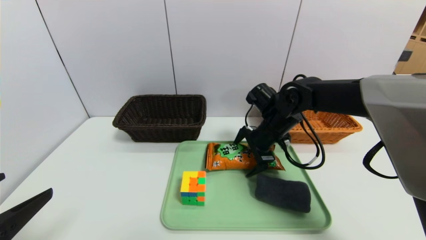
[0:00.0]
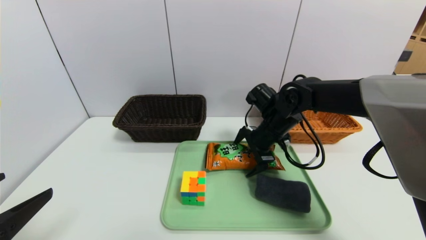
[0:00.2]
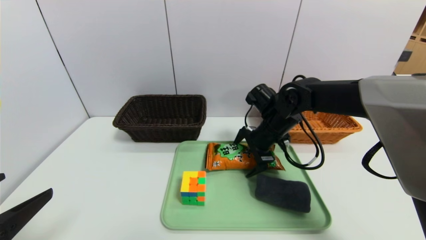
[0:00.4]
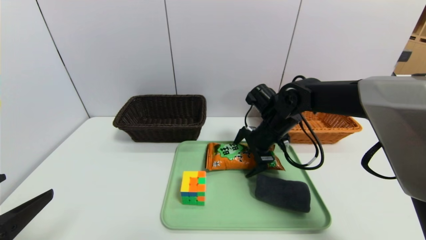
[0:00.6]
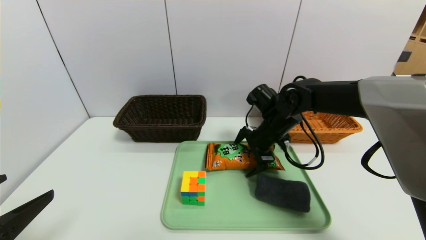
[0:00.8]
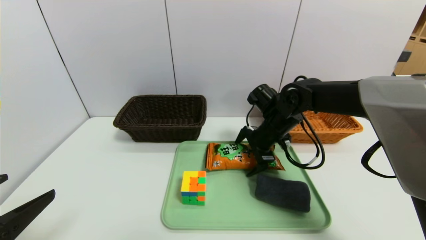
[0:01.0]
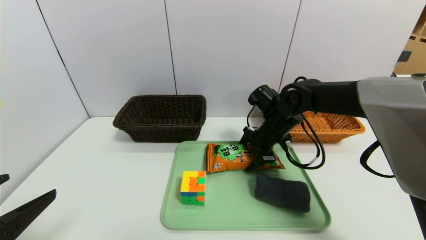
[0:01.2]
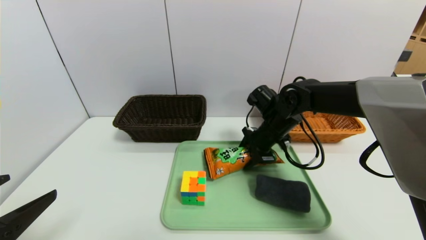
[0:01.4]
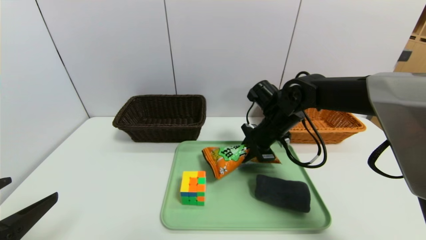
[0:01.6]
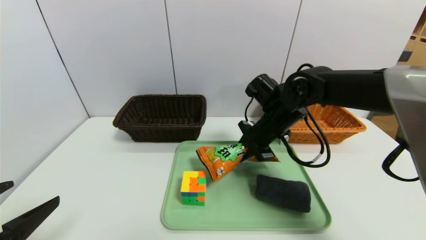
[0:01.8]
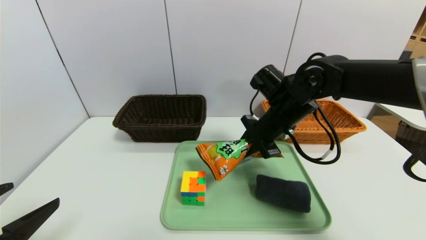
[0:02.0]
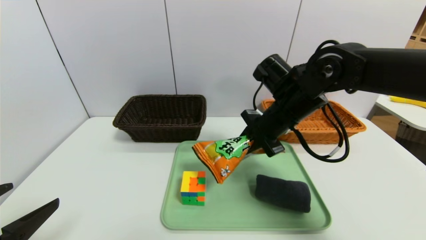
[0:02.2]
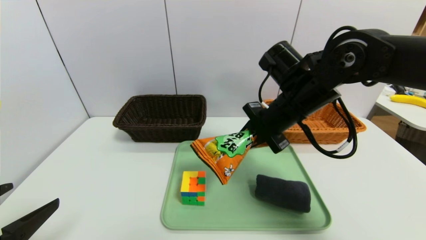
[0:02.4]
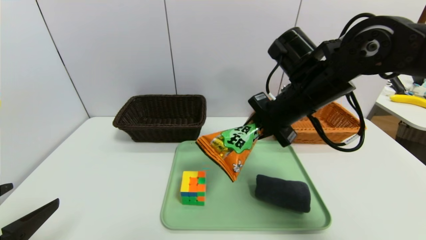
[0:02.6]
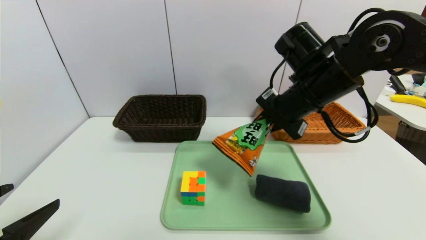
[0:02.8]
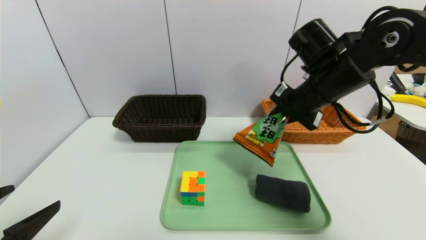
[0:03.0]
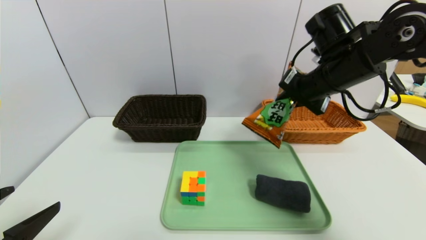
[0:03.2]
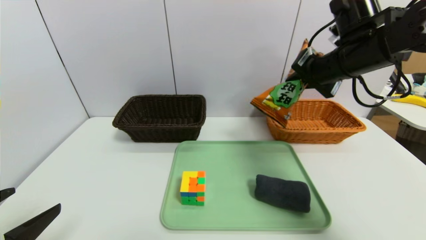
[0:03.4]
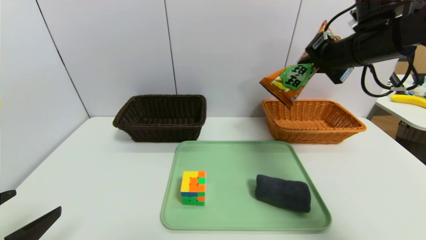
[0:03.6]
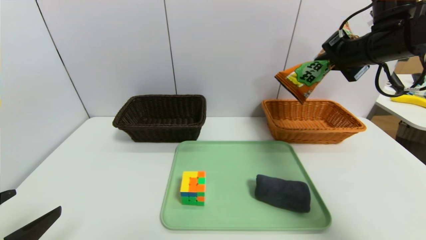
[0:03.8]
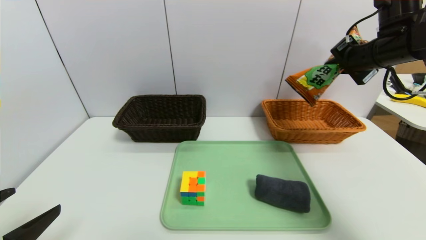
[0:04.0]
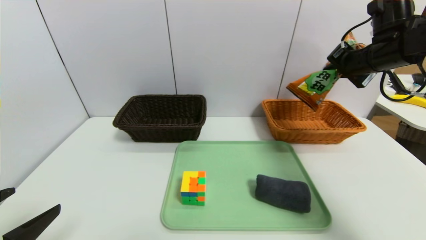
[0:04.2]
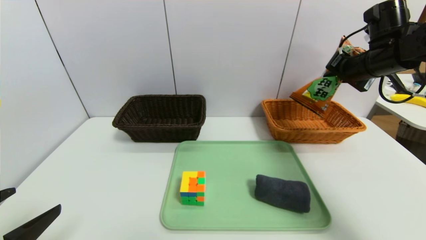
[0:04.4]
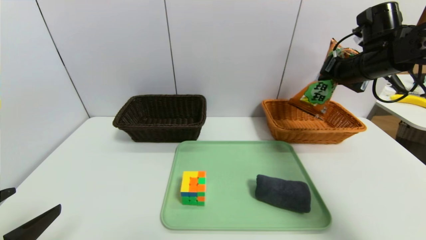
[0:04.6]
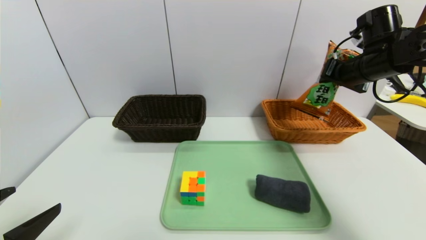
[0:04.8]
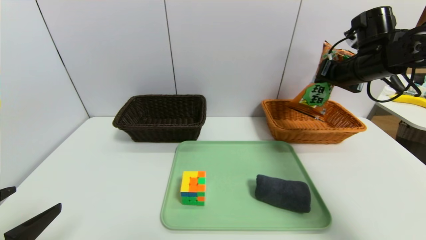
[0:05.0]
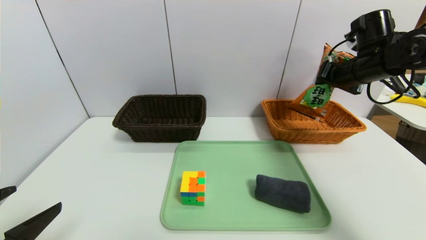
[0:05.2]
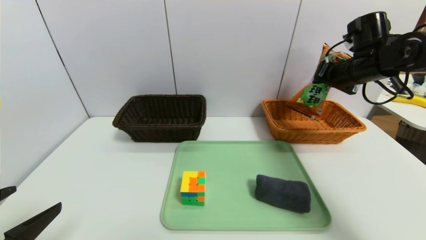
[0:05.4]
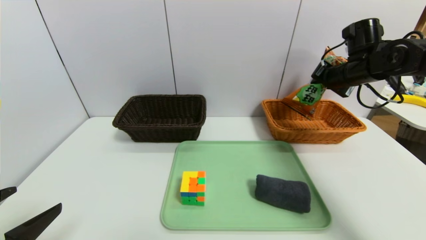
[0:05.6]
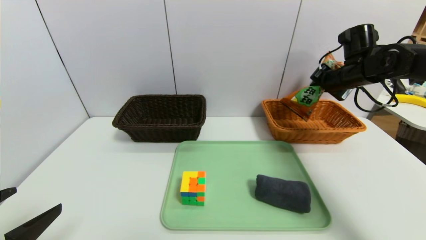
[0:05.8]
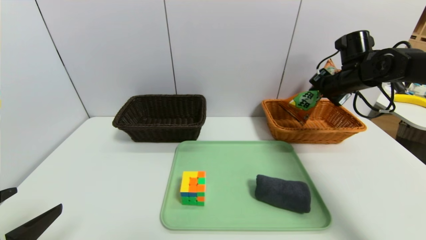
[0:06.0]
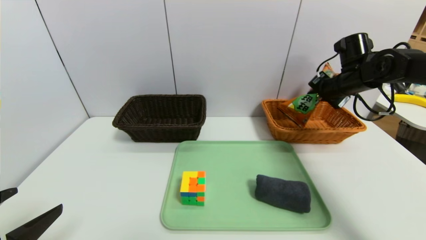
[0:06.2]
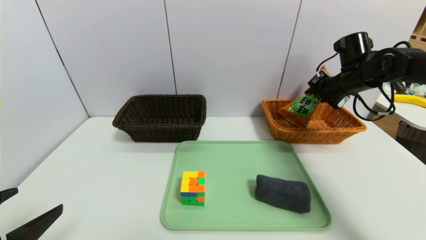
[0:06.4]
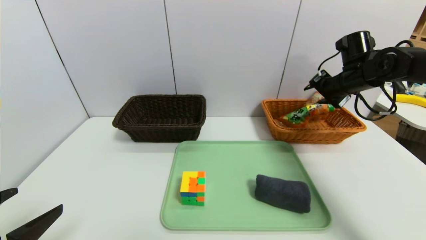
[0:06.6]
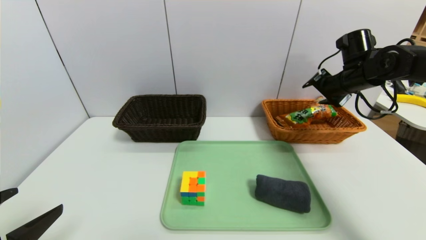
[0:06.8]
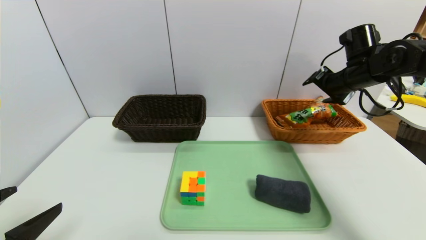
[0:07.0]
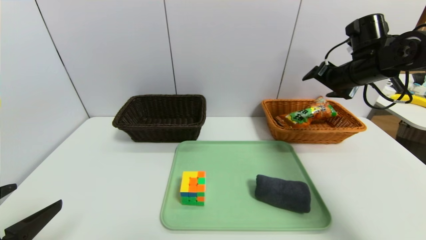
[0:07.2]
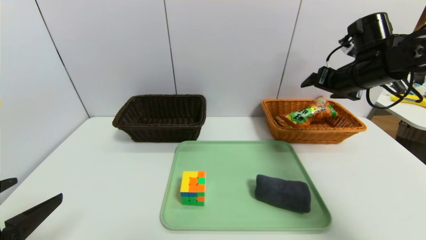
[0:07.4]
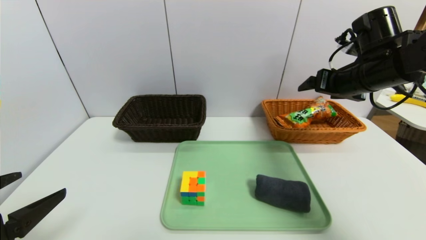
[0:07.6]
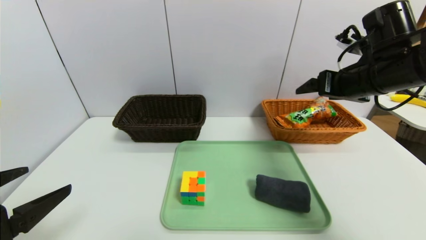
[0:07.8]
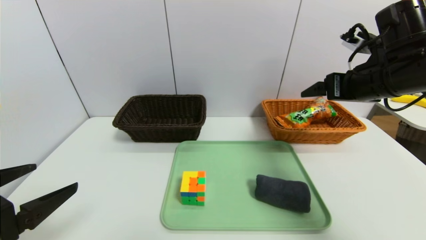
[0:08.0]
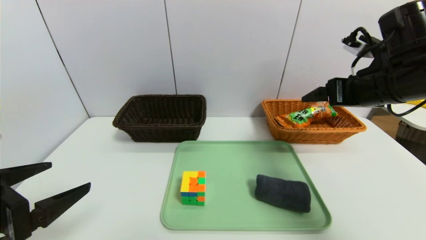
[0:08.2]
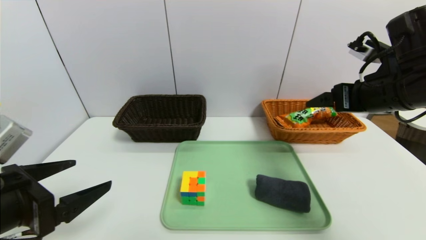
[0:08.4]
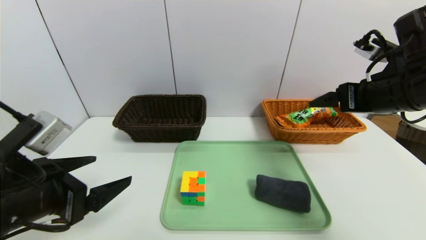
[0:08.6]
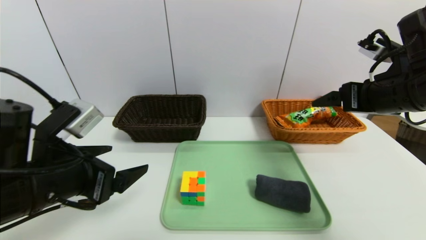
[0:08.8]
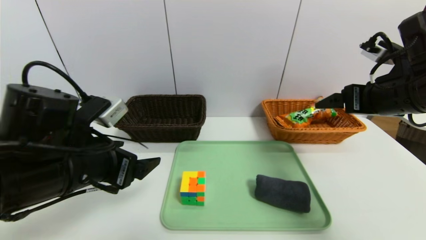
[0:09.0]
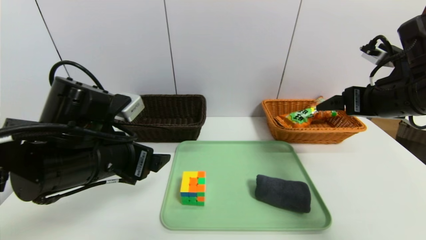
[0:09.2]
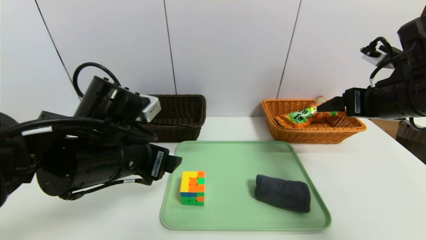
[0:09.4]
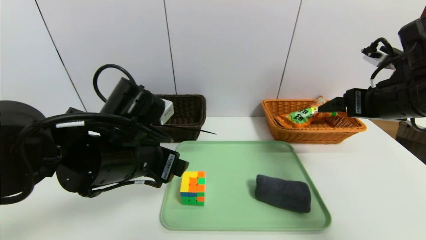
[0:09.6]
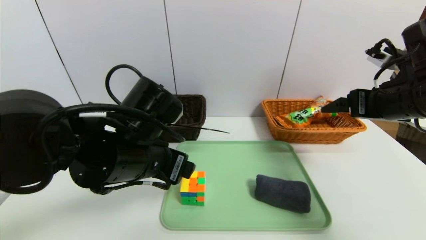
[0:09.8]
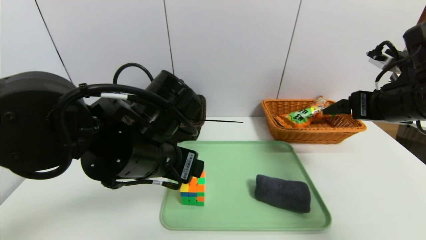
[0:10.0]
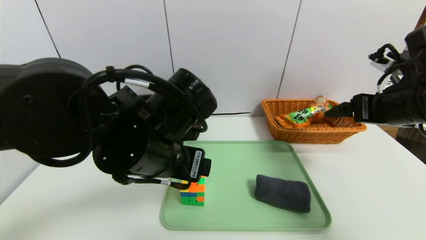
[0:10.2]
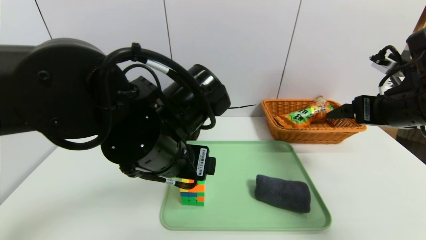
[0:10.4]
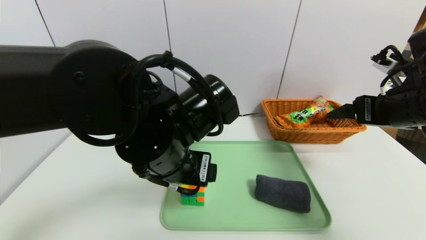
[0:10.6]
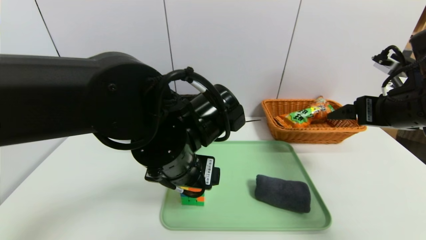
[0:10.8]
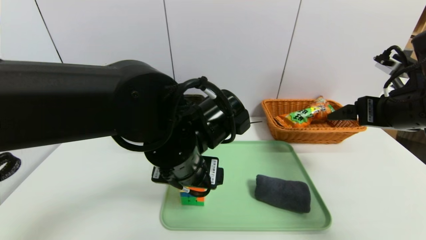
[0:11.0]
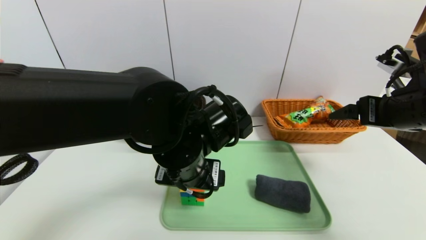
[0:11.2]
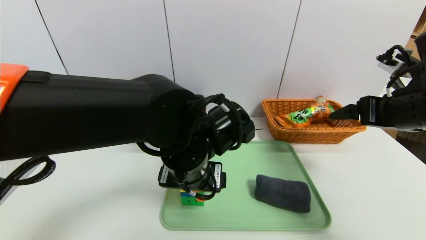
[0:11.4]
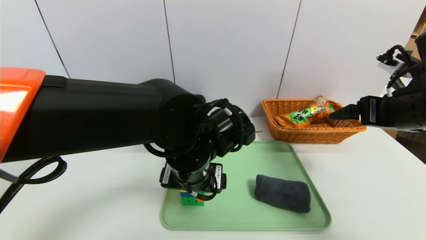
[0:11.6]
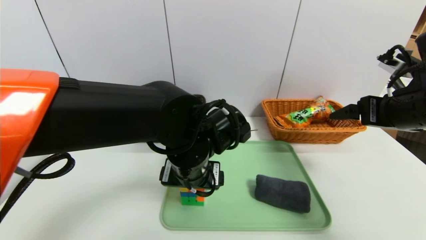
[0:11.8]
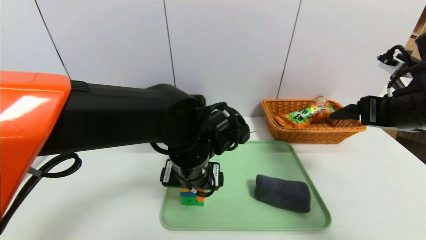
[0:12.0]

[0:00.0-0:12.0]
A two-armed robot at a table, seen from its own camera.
Task of the whole recording: place the food in the right basket with the right gripper, and place the non food items in the left basket with the left gripper.
Step, 0:00.0 to 0:07.0: Grasp the cookie and put it in the right basket.
0:00.0 to 0:01.6: The right gripper closes.
0:01.6 to 0:03.0: The right gripper travels upward and backward by some 10 cm.
0:03.0 to 0:04.4: The right gripper moves to the right and forward, about 15 cm.
0:04.4 to 0:06.0: The right gripper heads downward and forward, covering roughly 10 cm.
0:06.0 to 0:07.6: The right gripper moves backward, about 10 cm, and opens its fingers.
0:07.6 to 0:09.0: The left gripper shifts roughly 15 cm forward and to the right; the right gripper travels backward by roughly 10 cm.
0:09.0 to 0:10.4: The left gripper goes about 10 cm to the right.
0:10.4 to 0:12.0: The left gripper heads downward, covering roughly 5 cm.

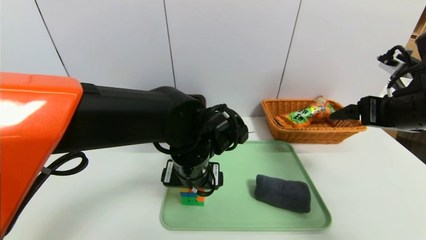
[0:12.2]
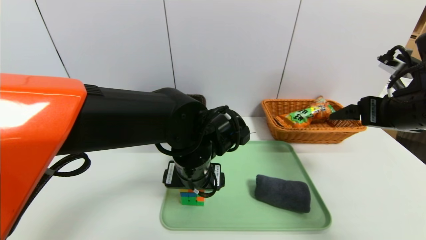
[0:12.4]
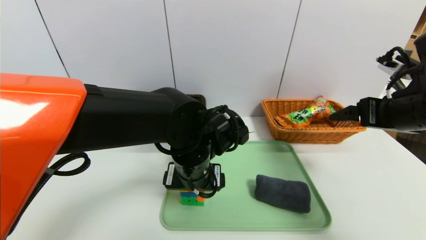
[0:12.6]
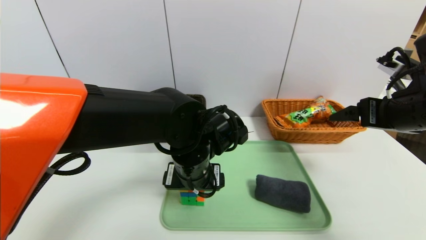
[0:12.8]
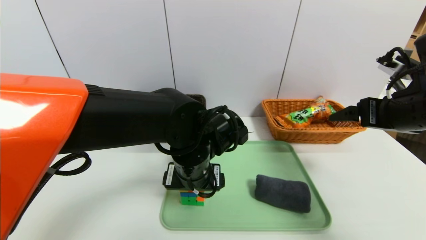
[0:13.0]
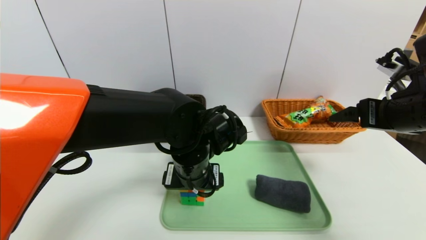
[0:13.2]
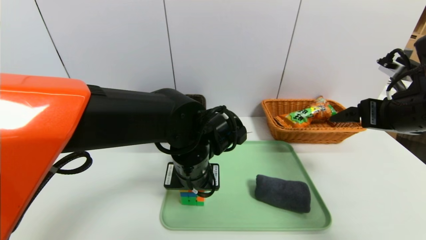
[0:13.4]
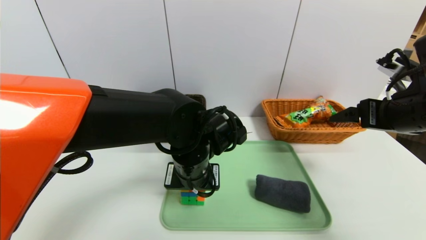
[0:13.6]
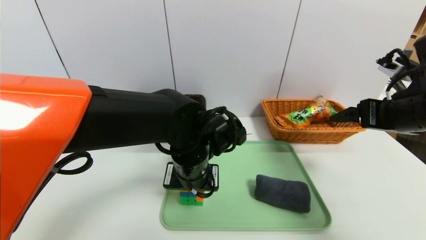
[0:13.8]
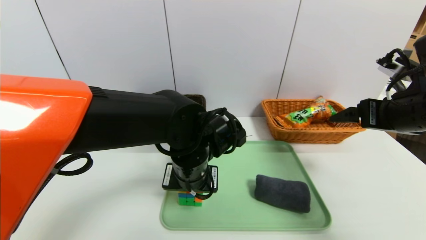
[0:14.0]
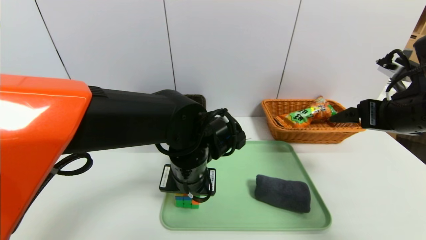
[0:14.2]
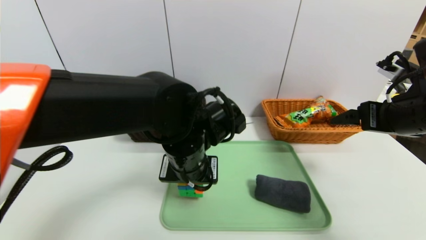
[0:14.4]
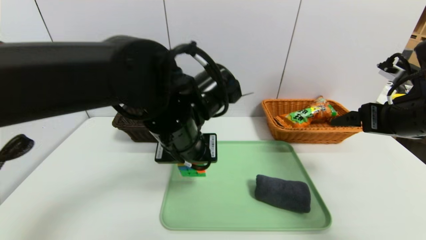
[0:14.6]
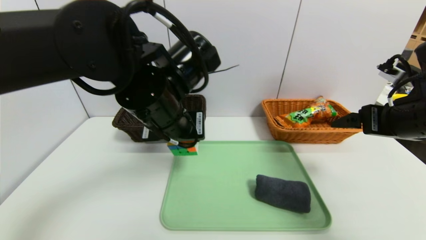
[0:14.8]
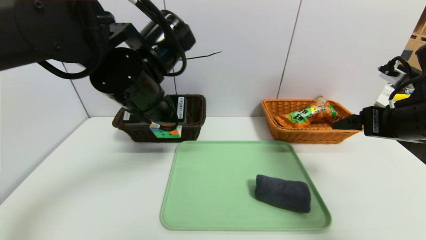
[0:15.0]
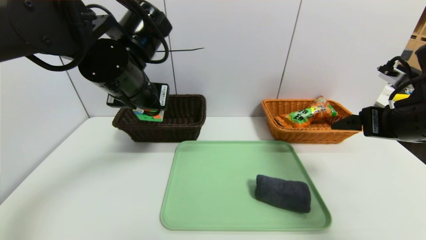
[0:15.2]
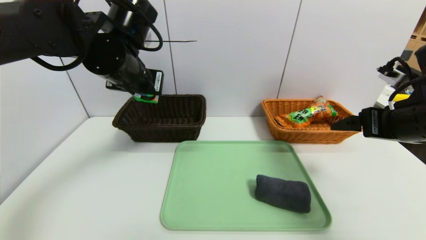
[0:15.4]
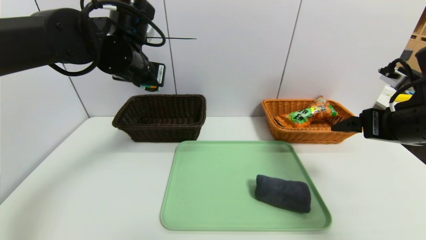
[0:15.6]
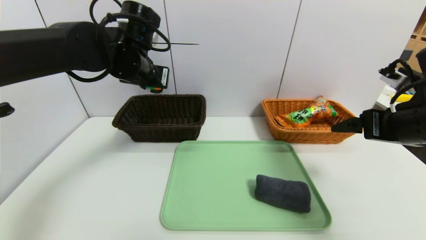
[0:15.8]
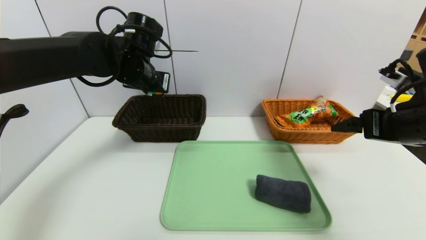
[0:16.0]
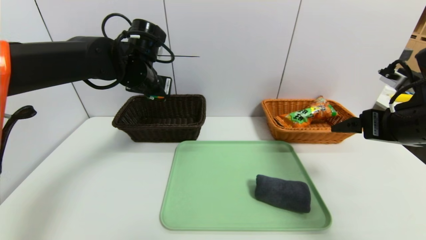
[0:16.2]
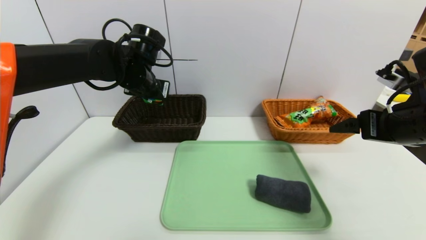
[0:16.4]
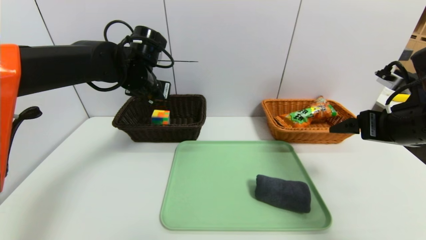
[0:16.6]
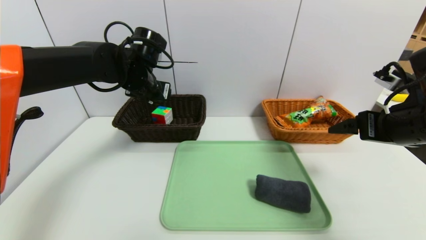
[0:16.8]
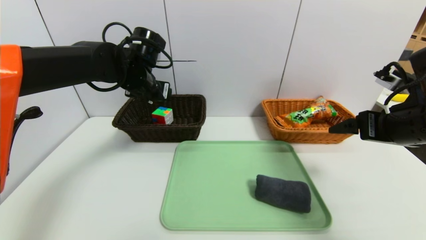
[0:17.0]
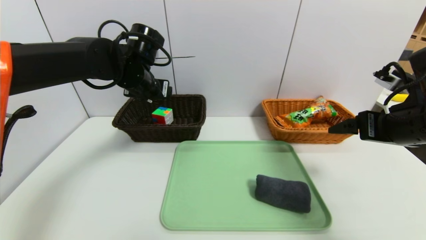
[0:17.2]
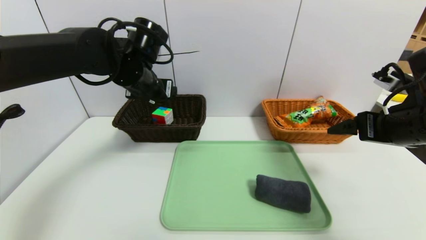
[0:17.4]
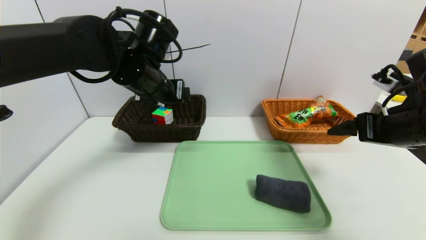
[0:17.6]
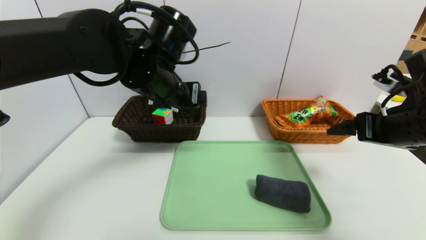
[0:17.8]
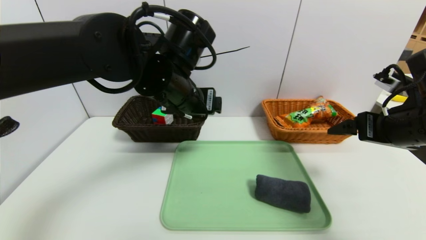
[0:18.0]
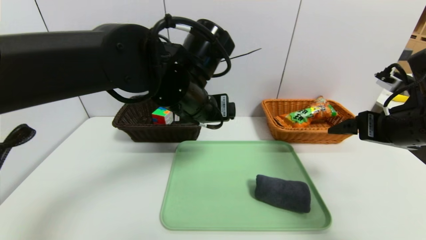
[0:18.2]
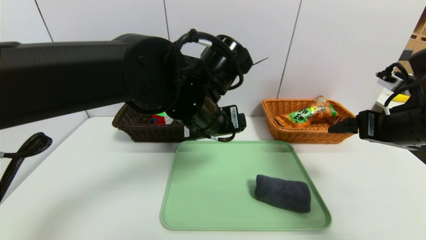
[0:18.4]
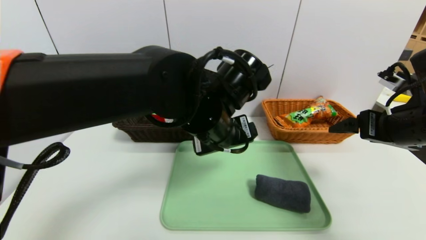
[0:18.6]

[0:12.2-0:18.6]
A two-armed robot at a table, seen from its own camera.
Task of the whole recording: place the food in the right basket with the right gripper, and place the non food items in the left basket with the left gripper.
Step, 0:12.2 to 0:17.0: Grasp the rubiks cube and put it in the left basket.
0:12.2 to 0:13.8: The left gripper closes.
0:13.8 to 0:15.4: The left gripper moves upward, to the left and forward, about 20 cm.
0:15.4 to 0:17.0: The left gripper goes approximately 5 cm forward.
0:17.0 to 0:18.6: The left gripper moves to the right and backward, some 20 cm.
